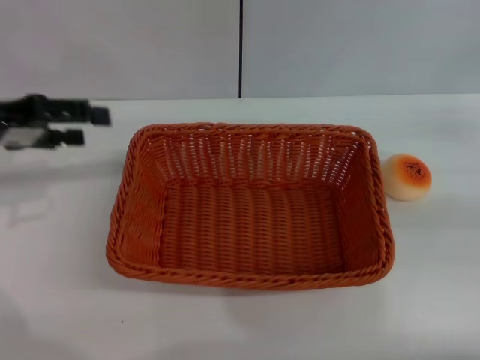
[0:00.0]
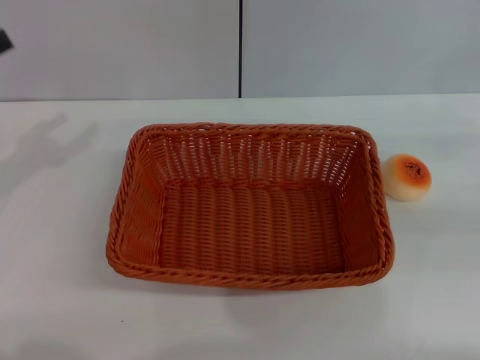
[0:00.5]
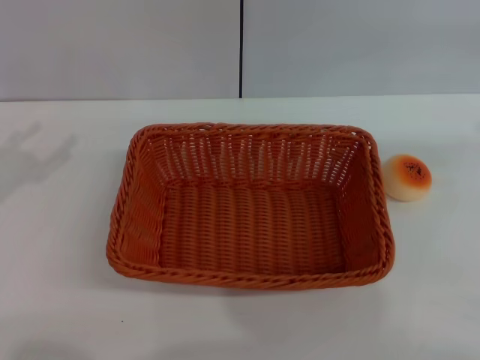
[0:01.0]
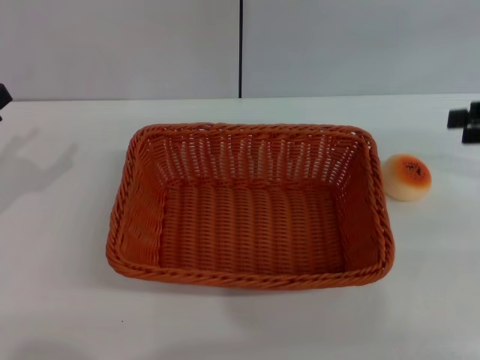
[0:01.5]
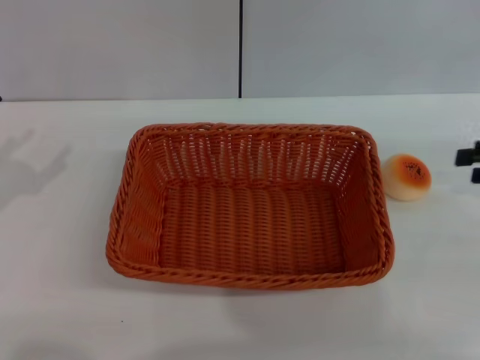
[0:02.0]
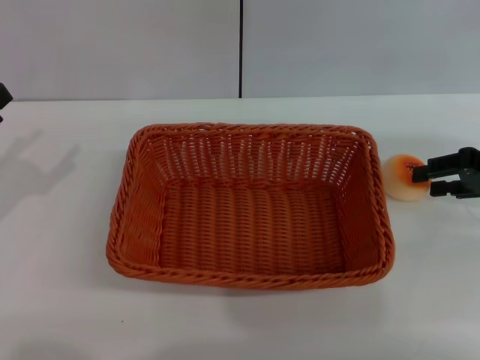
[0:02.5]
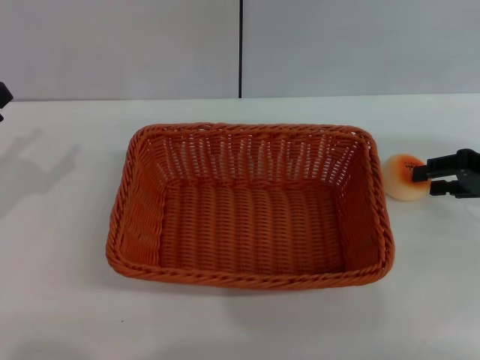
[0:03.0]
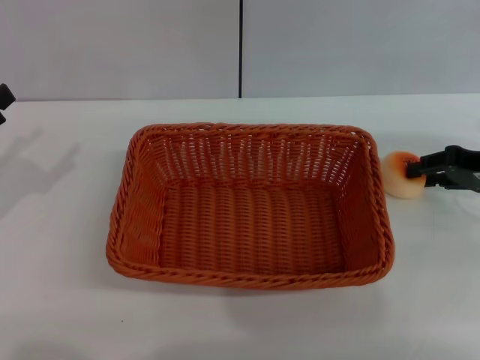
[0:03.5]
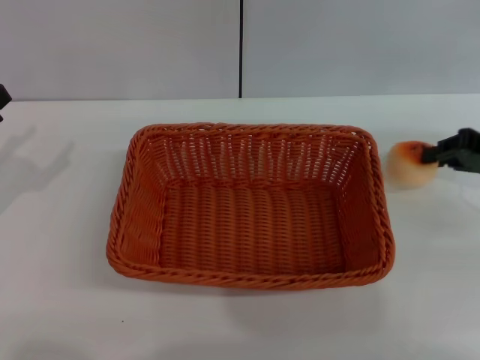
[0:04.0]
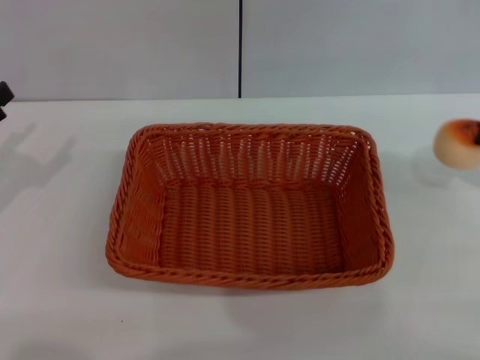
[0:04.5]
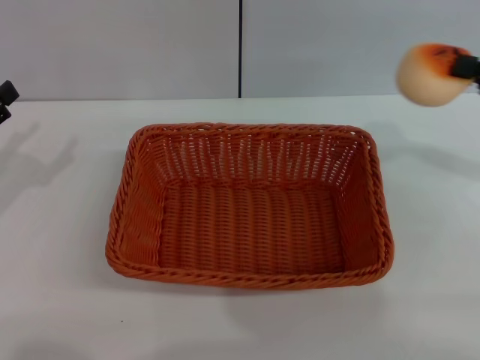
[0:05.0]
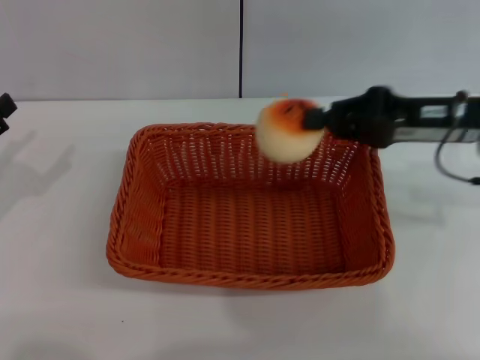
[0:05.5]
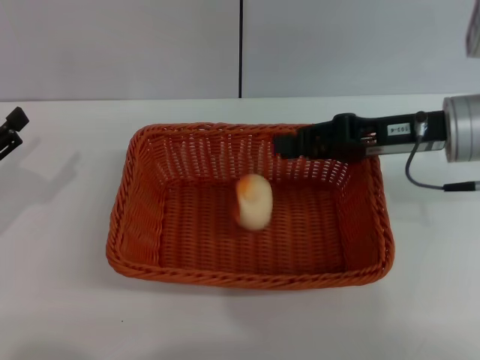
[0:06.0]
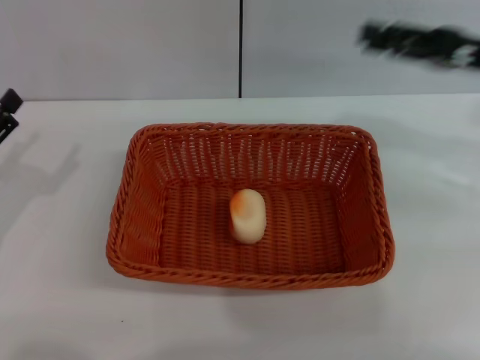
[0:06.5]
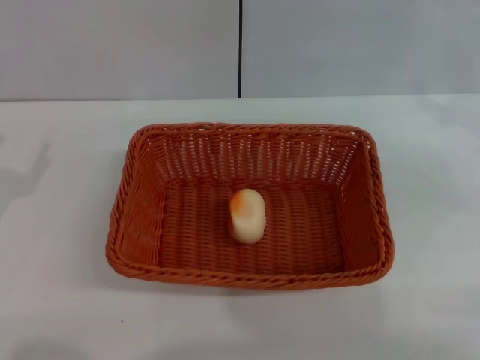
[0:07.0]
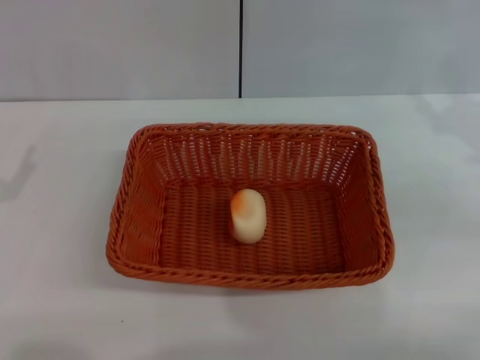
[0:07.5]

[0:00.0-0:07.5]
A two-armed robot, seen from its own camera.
Step, 0:00.5 to 0:04.0: Pick up the egg yolk pastry with the right gripper.
Step, 0:04.5 to 0:06.0: Place the egg yolk pastry into the basket with the right gripper.
0:00.0 to 0:02.0: The left gripper shifts about 10 cm backward and downward.
0:02.0 to 0:04.0: The right gripper closes up.
0:04.0 to 0:05.5: The right gripper shifts some 10 cm to the left.
0:05.5 to 0:07.5: The right gripper travels to the right by about 10 cm, and opens.

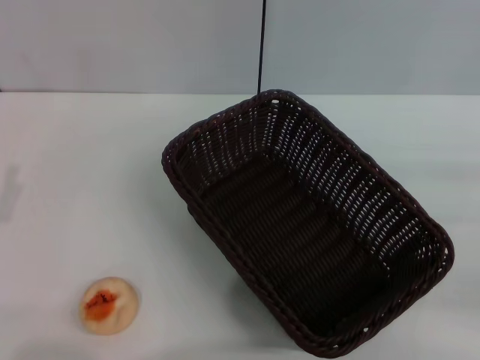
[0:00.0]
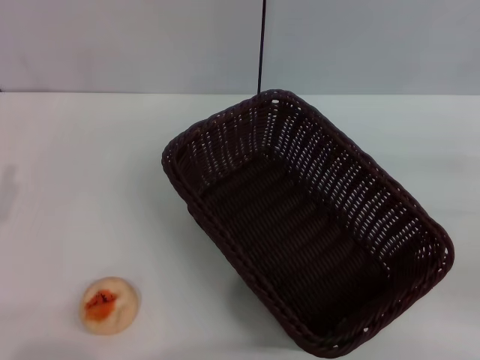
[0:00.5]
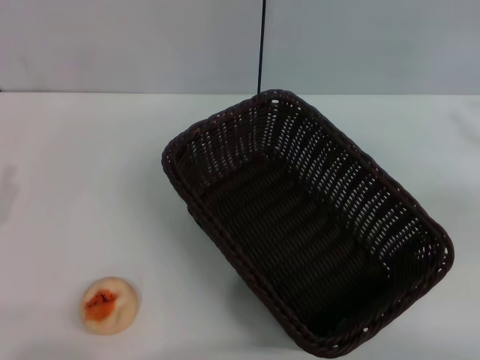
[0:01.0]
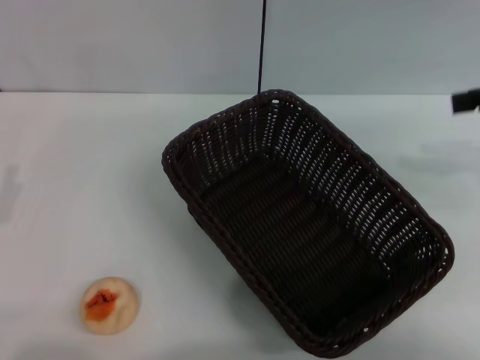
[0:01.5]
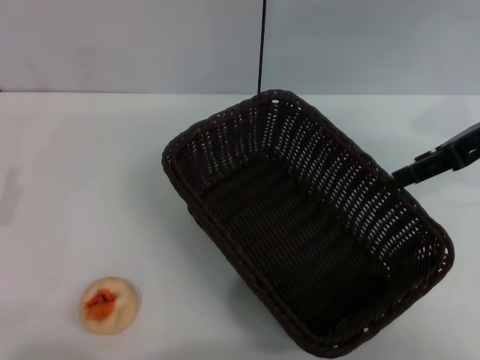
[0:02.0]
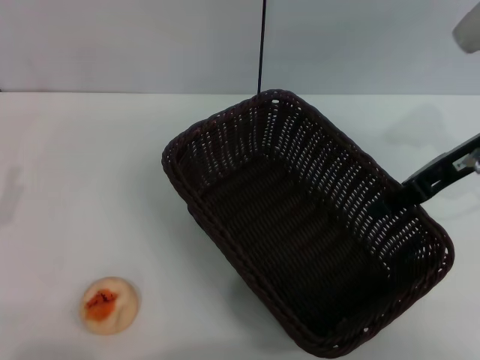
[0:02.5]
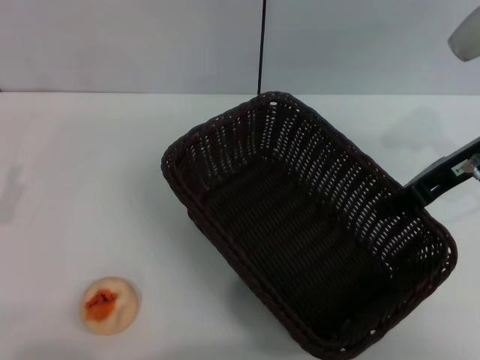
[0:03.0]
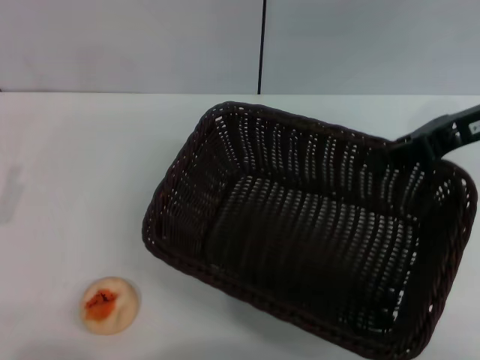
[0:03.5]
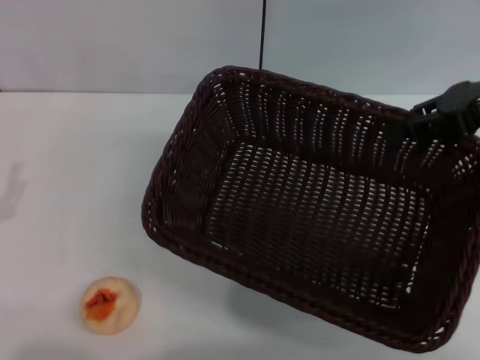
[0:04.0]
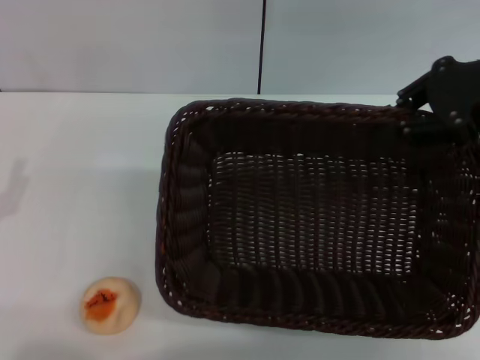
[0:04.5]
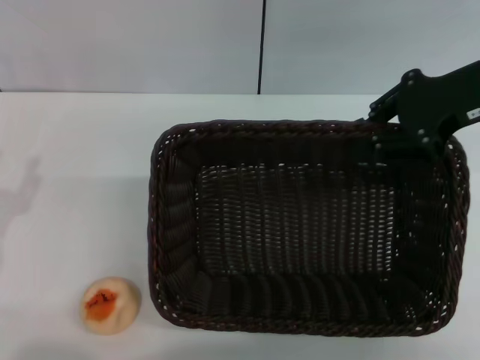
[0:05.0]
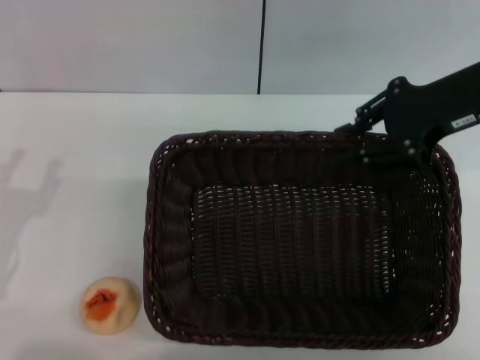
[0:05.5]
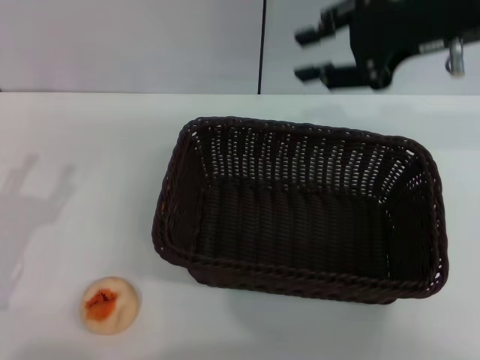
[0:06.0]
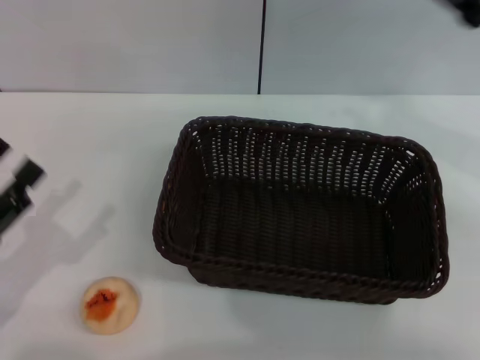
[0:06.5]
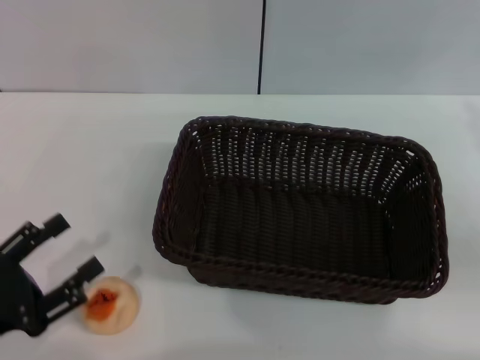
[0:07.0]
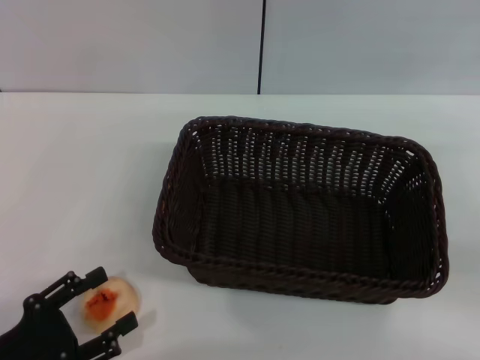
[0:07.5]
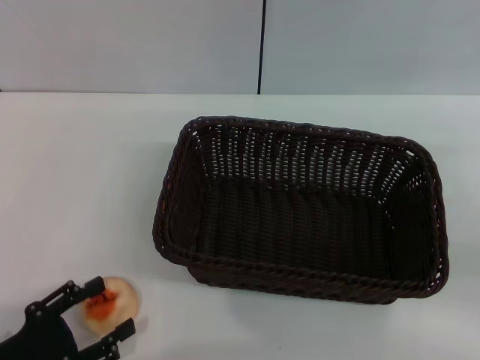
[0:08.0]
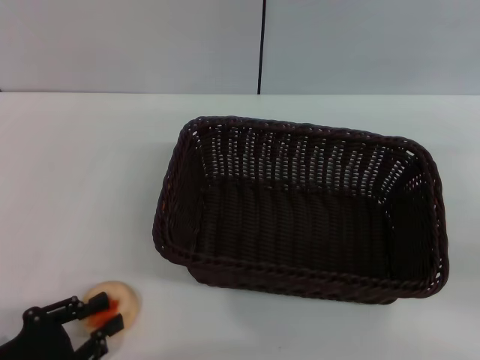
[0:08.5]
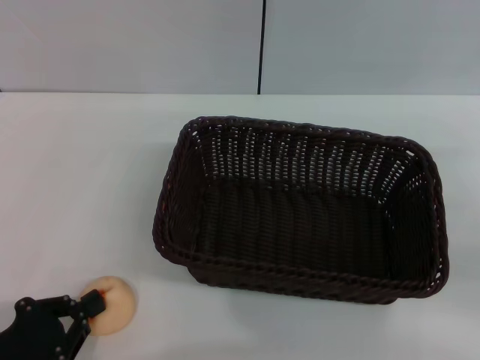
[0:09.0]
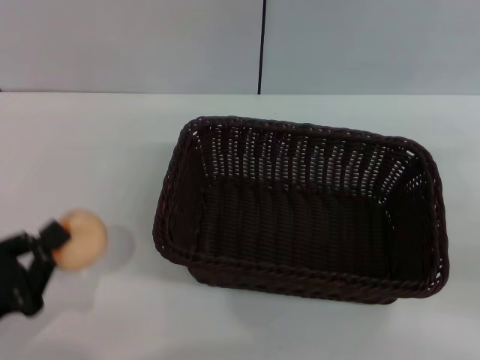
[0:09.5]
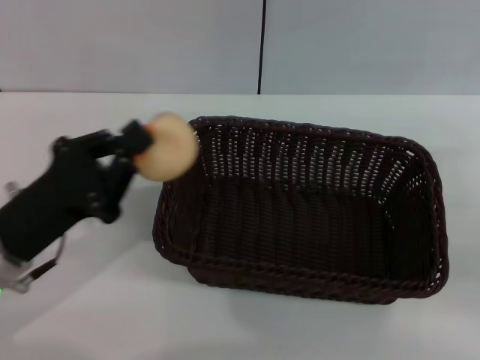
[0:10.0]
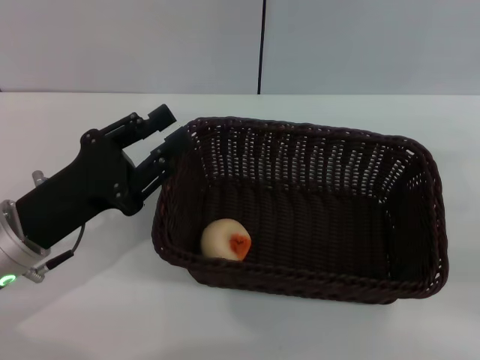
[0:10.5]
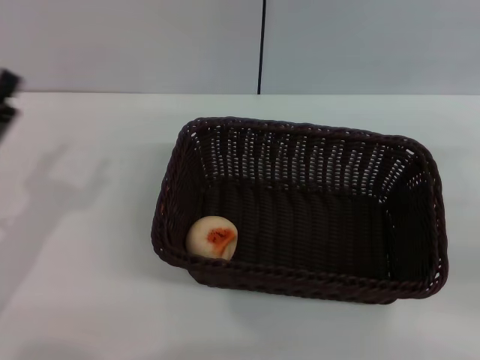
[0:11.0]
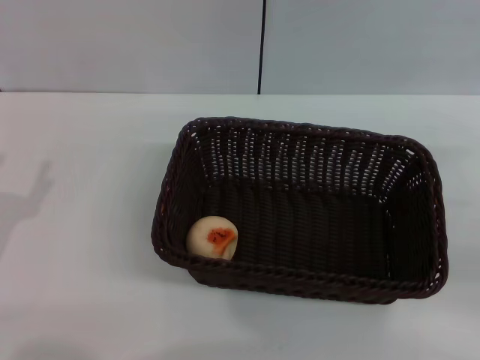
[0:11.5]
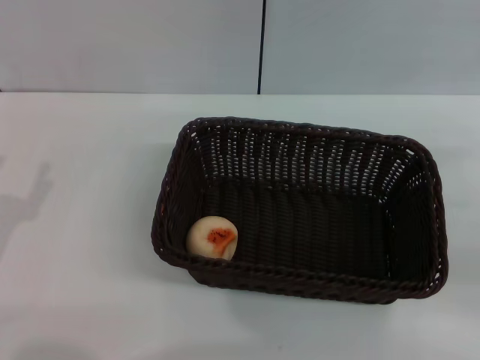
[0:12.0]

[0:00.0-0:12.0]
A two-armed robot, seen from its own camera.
Step, 0:00.0 to 0:05.5: Move the basket to the center of view with the right gripper.
Step, 0:06.0 to 0:09.0: Pick up the egg yolk pastry with the left gripper.
Step, 0:09.5 to 0:10.0: Place the egg yolk pastry into the basket with the left gripper.
0:00.0 to 0:02.0: The right gripper moves to the left, forward and upward, roughly 20 cm, and opens.
0:02.0 to 0:04.0: The right gripper closes up.
0:04.0 to 0:06.0: The right gripper is displaced to the left by roughly 5 cm, and opens.
0:06.0 to 0:08.0: The left gripper goes roughly 10 cm backward and downward. The right gripper heads downward, to the right and backward, covering about 25 cm.
0:08.0 to 0:10.0: The left gripper moves forward, upward and to the right, approximately 15 cm, and closes its fingers.
0:10.0 to 0:12.0: The left gripper goes about 10 cm to the left and backward, and opens.
